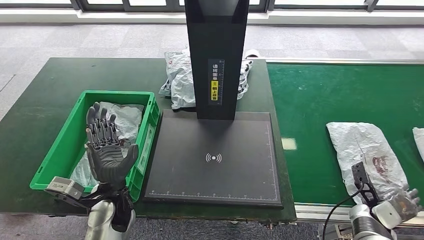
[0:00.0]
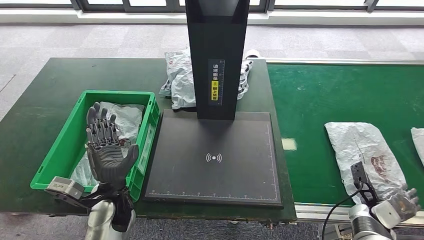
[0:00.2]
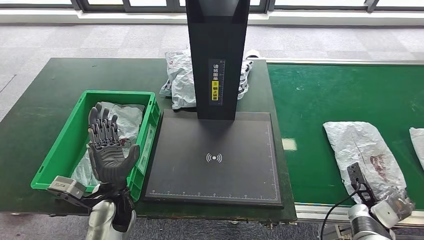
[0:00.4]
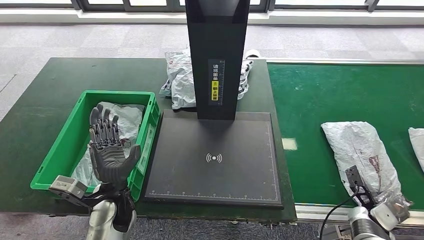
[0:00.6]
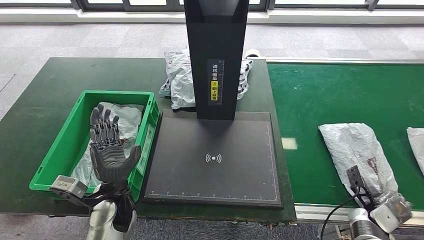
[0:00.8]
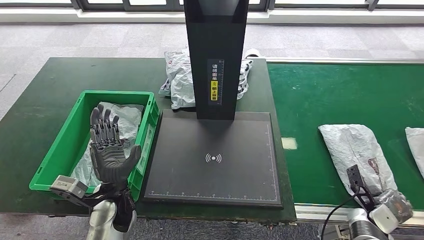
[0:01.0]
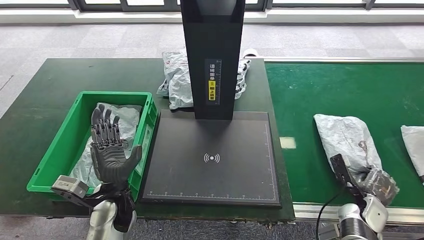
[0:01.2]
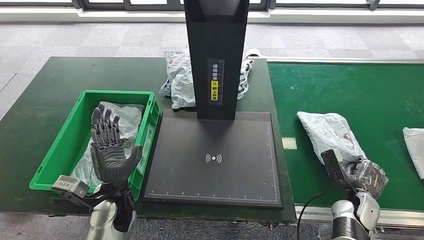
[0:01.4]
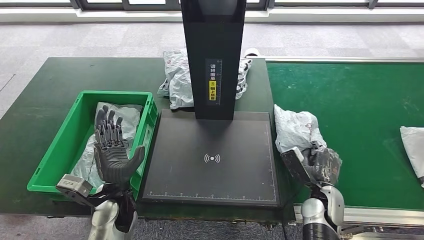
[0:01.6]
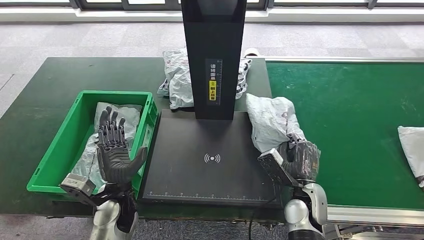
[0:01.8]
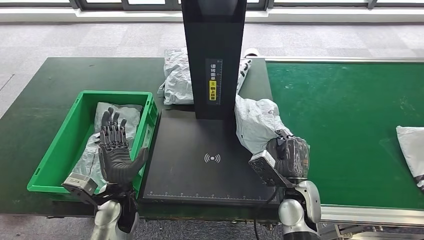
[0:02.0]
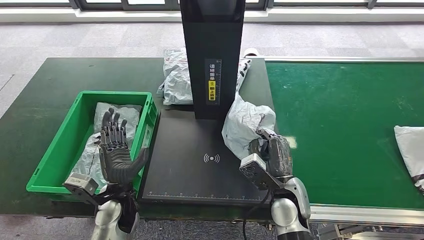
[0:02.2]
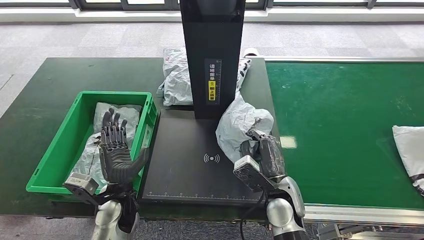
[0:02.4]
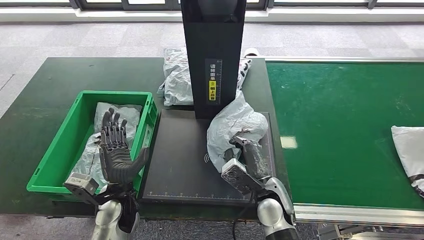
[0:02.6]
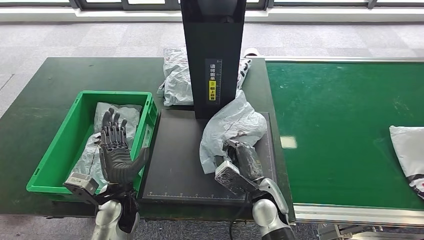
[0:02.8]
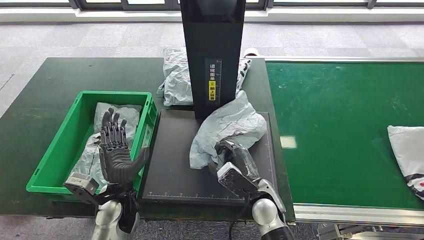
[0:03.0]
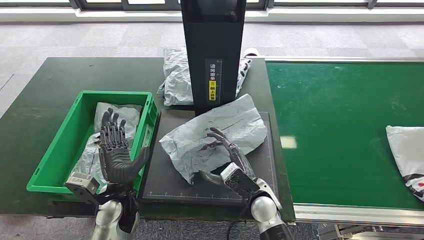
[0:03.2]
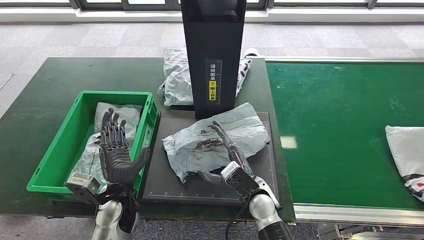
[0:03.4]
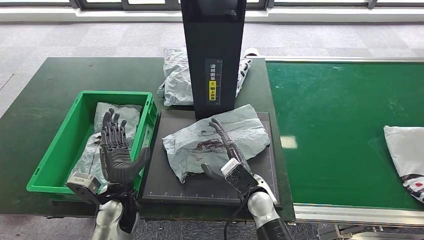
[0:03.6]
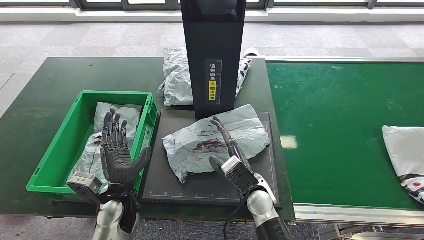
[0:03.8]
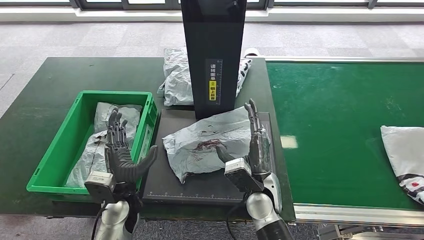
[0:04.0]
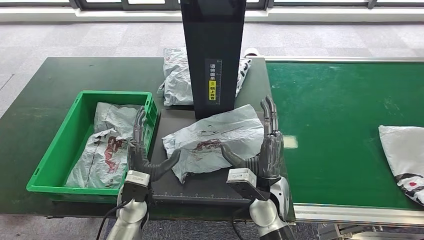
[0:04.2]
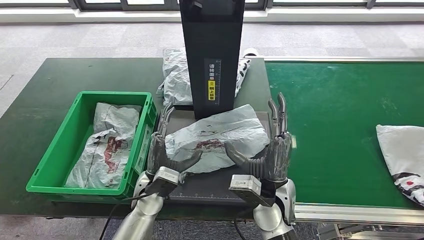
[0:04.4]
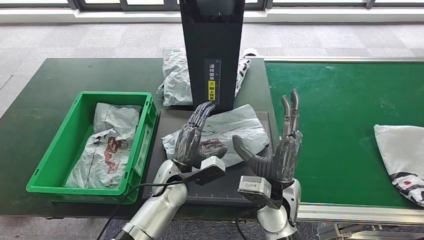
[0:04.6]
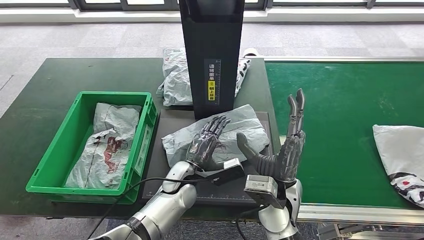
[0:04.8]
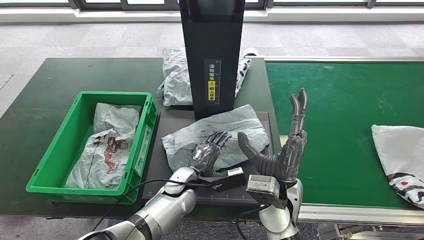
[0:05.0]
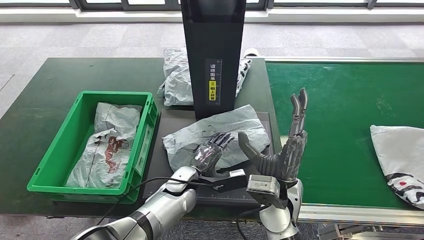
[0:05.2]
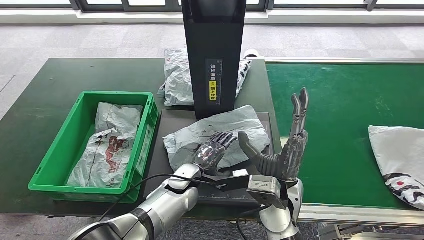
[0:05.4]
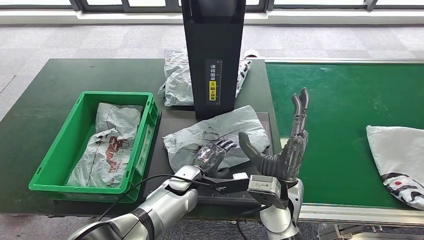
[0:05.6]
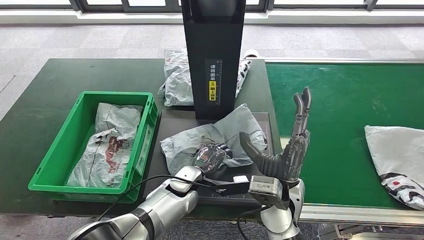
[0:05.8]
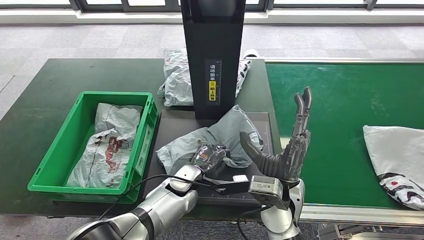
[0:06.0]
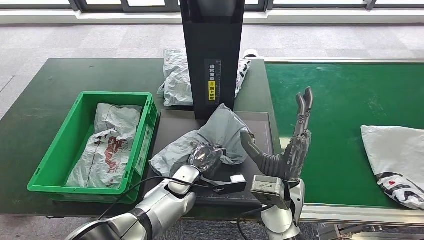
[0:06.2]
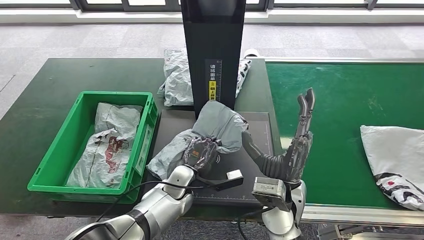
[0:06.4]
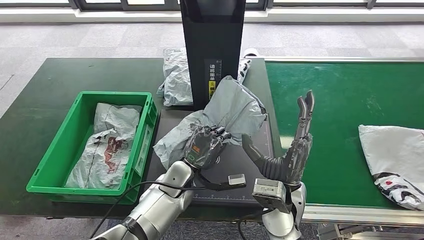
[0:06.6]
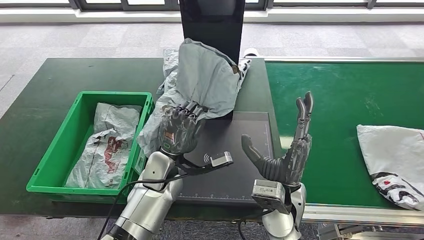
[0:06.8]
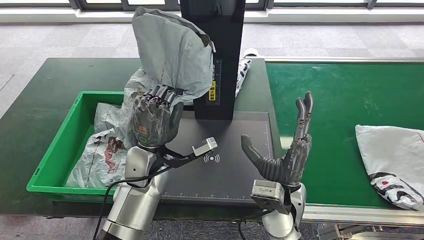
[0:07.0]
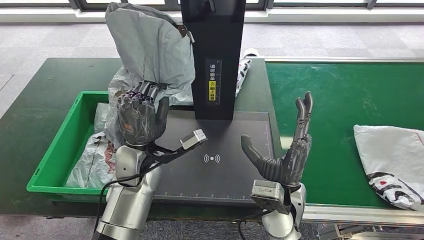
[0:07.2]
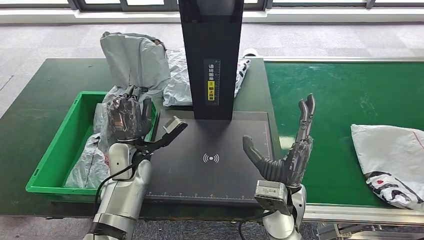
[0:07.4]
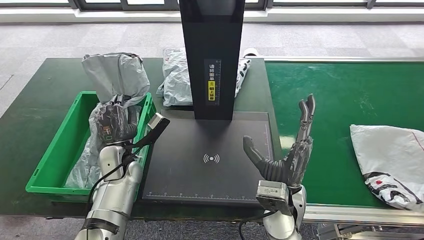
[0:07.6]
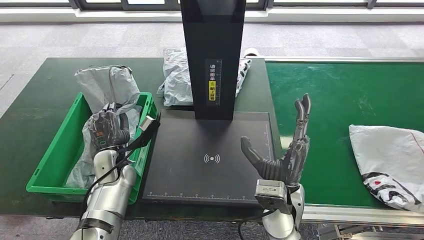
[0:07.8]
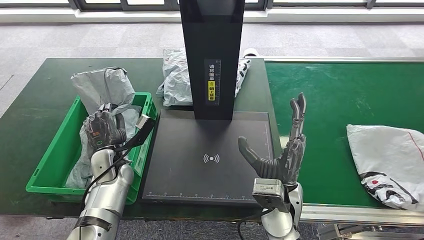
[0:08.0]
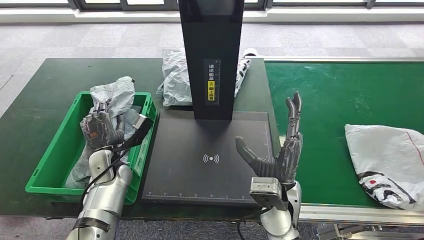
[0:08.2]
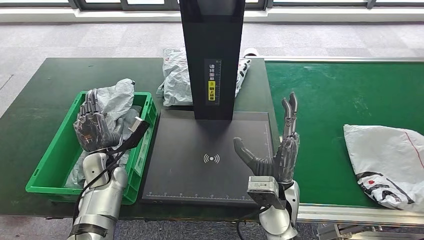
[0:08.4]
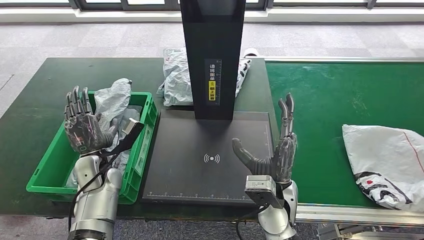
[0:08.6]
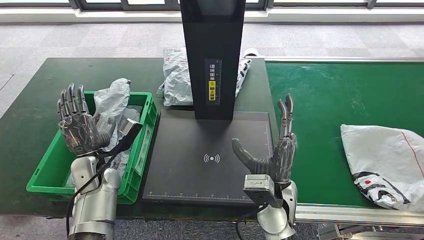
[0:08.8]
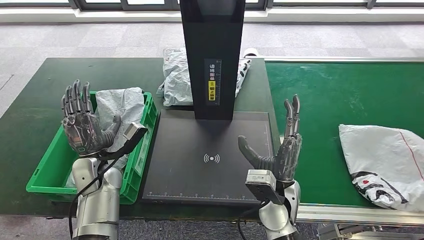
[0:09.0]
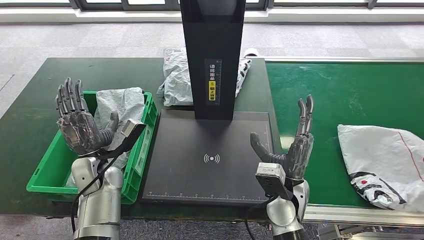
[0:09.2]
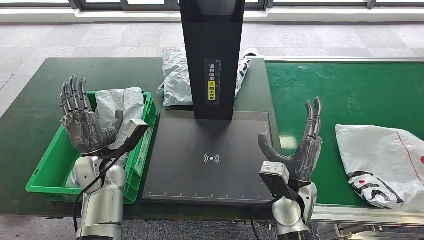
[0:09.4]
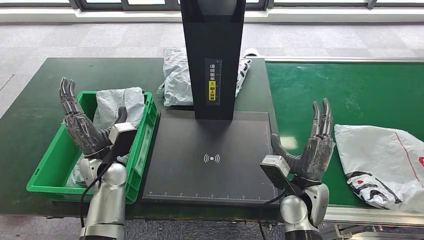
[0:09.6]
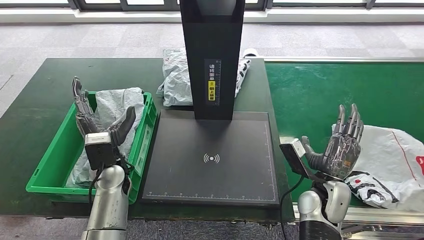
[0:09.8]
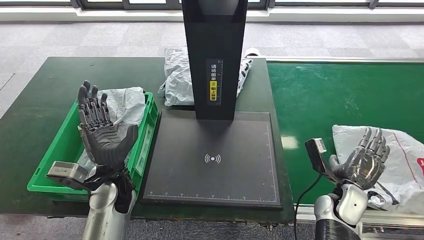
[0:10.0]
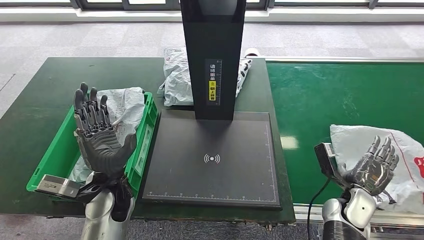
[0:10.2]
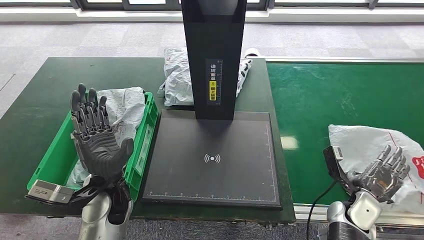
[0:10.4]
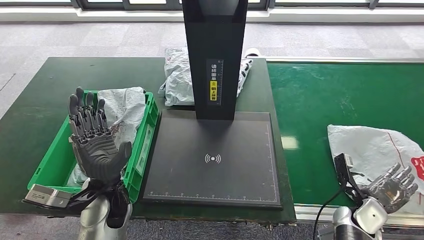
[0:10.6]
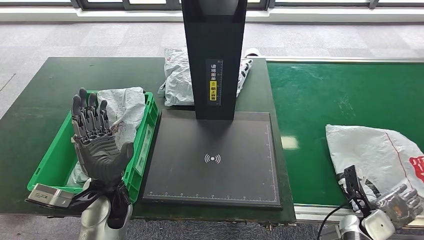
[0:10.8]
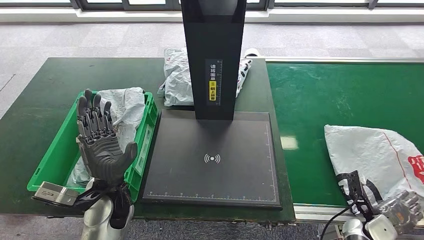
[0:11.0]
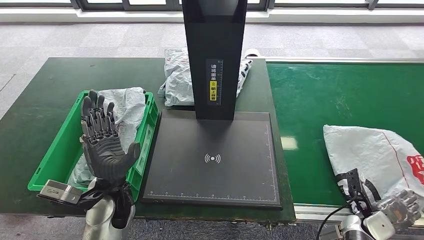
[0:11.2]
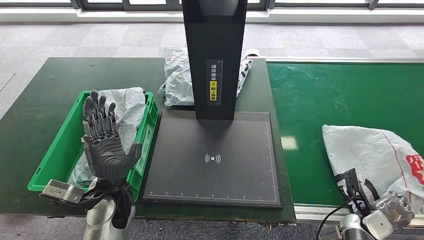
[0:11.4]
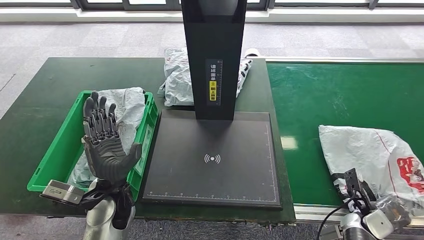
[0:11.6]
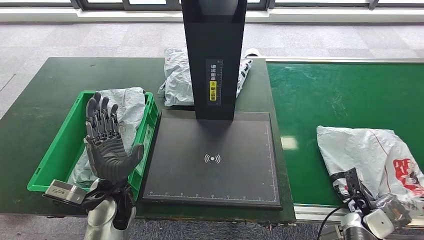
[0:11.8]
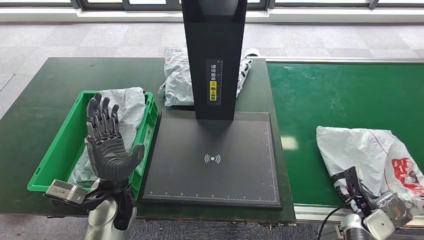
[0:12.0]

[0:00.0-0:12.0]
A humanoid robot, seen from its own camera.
Step, 1.8 to 3.4 s: Place the parcel onto the inbound machine.
Step, 3.6 to 6.4 s: Pick up the parcel from the inbound machine.
Step, 6.6 to 10.0 s: Place the parcel into the delivery box.
1.6 to 3.0 s: The right hand travels to the left by about 15 cm.
3.0 to 4.4 s: The left hand travels to the right by approximately 5 cm, while the right hand is displaced upward by approximately 5 cm.
7.6 to 9.0 s: The left hand moves about 5 cm.
9.0 to 10.4 s: The left hand travels to the right and backward by about 10 cm, while the right hand is displaced to the right and downward by approximately 25 cm.
10.4 to 12.0 s: The right hand moves downward and to the right, about 10 cm.

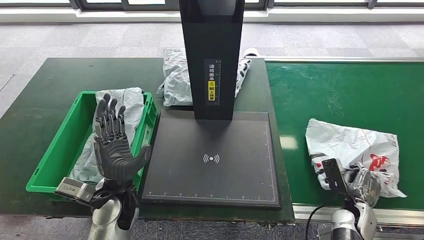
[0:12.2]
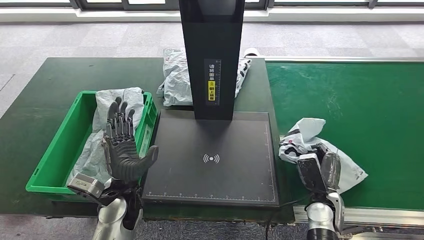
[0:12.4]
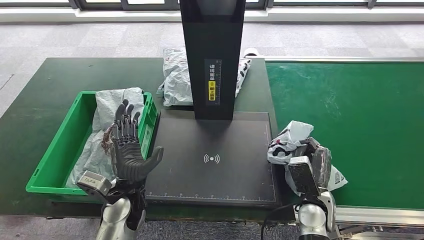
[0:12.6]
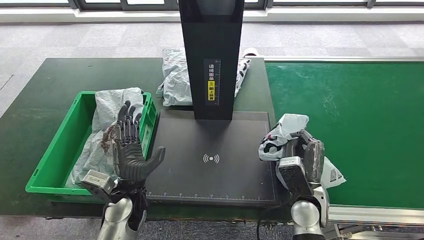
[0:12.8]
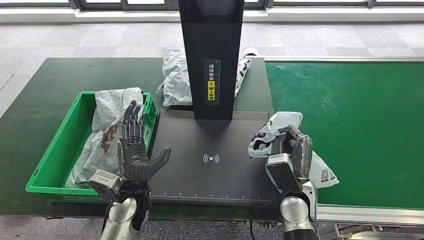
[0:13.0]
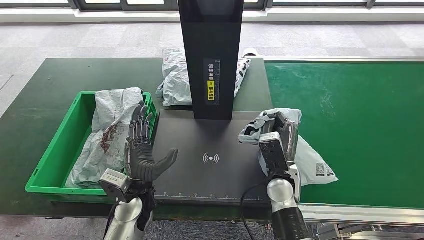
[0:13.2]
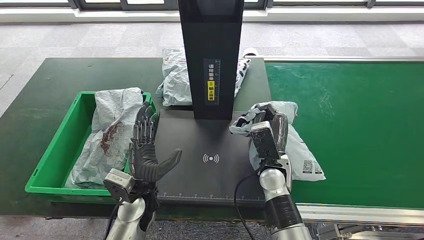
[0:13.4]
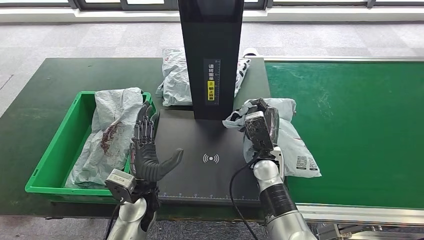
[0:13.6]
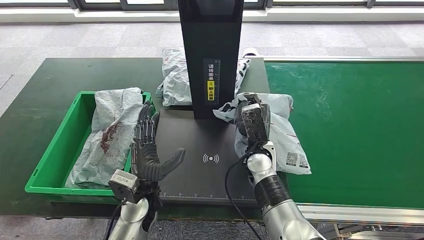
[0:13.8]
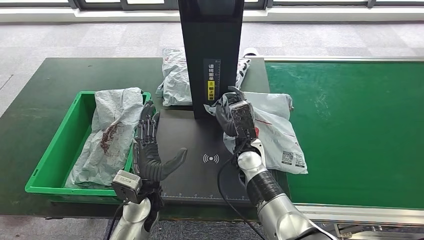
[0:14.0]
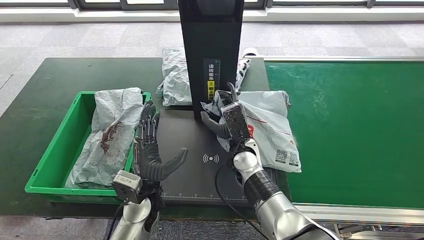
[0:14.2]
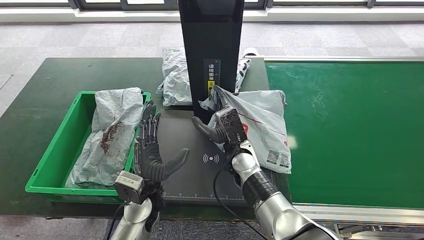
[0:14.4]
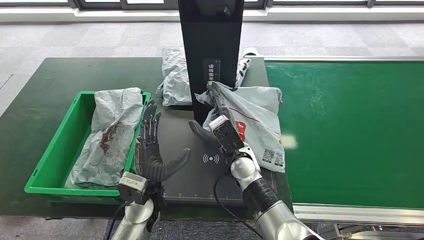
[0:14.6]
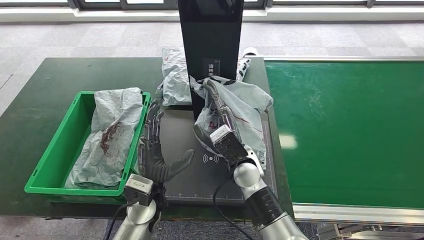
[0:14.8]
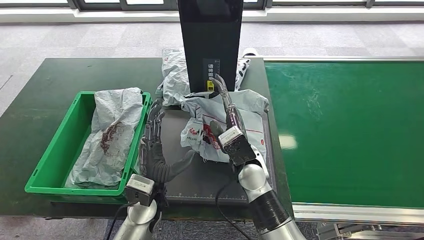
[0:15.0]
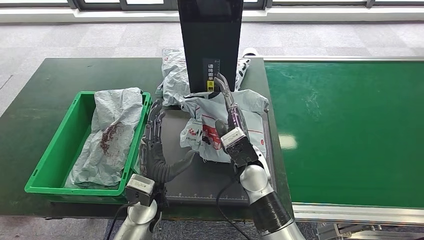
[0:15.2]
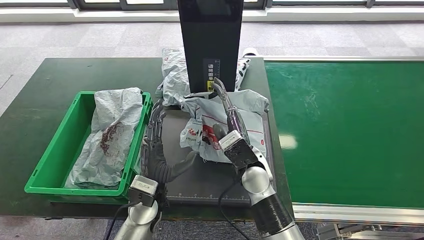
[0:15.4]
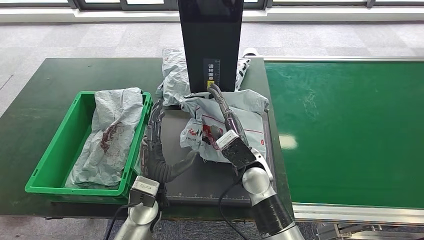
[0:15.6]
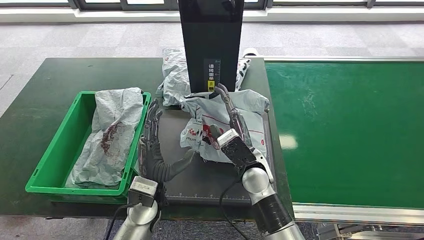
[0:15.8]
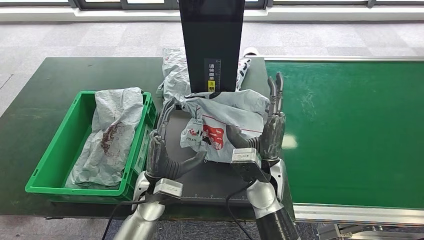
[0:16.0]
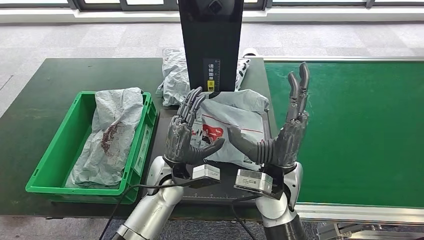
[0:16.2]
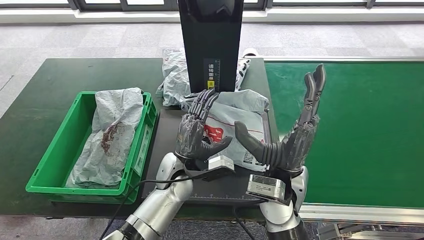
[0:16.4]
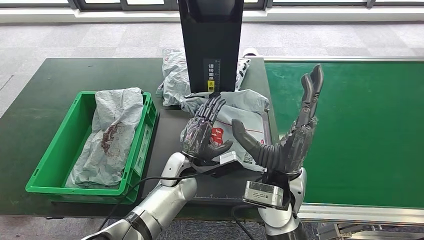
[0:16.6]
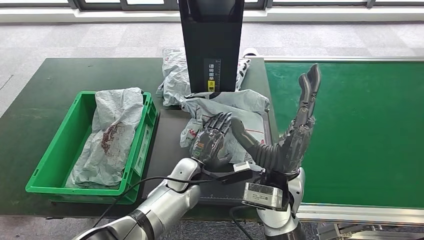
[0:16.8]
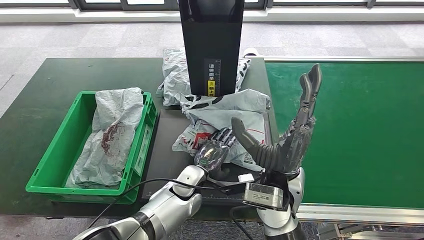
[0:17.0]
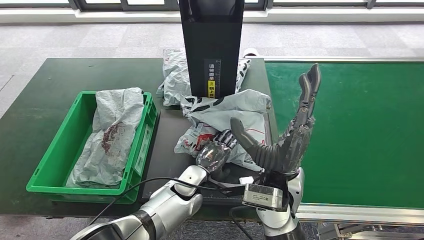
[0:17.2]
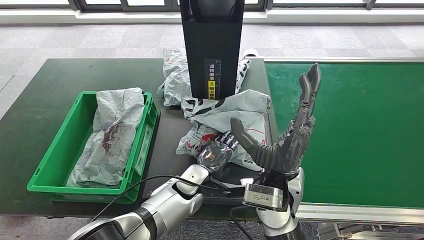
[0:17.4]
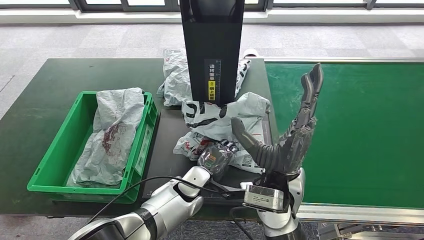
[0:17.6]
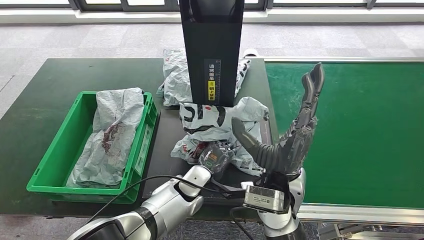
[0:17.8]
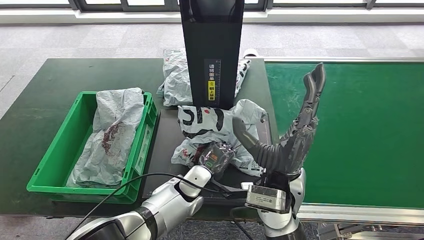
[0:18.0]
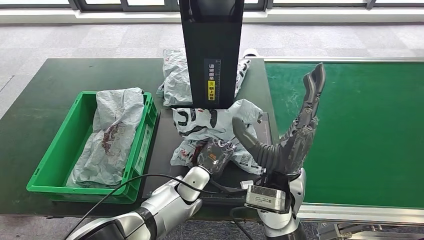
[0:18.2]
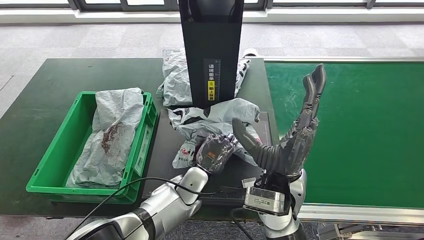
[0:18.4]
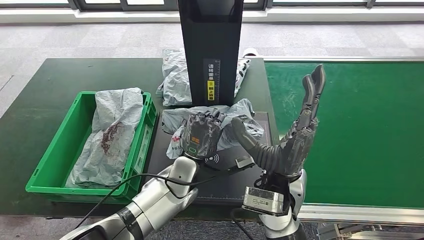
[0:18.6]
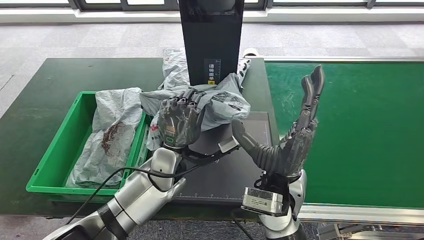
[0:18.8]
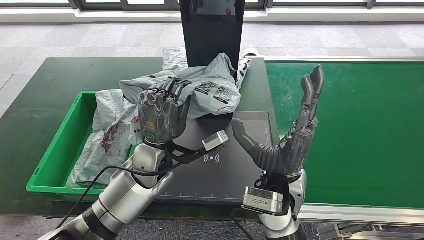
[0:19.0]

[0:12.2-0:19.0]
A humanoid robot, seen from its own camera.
Step, 13.2 to 14.8 s: Place the parcel onto the inbound machine.
13.6 to 15.0 s: The right hand goes roughly 5 cm to the left.
15.0 to 16.2 s: The right hand moves upward, some 5 cm; the left hand changes place by approximately 5 cm.
